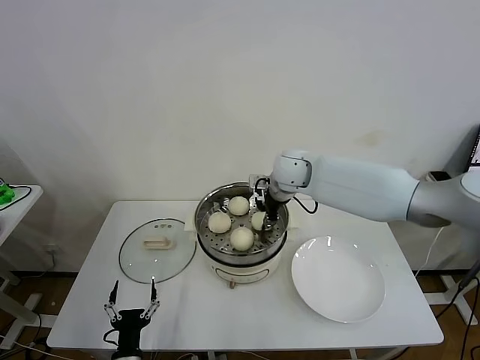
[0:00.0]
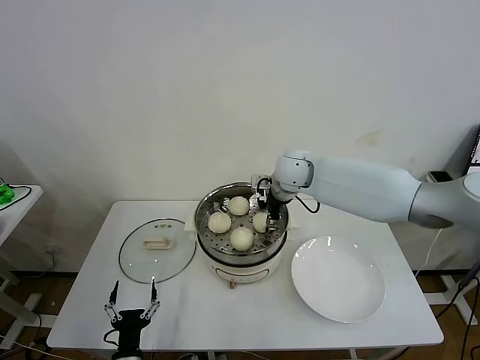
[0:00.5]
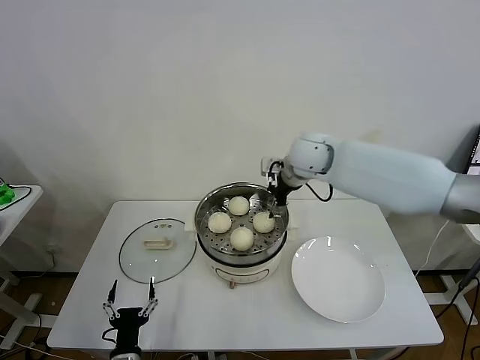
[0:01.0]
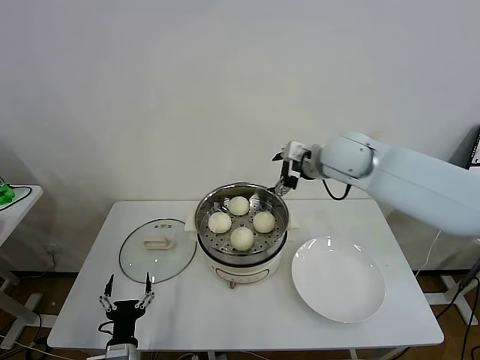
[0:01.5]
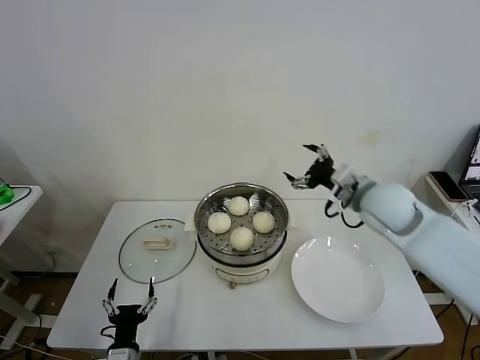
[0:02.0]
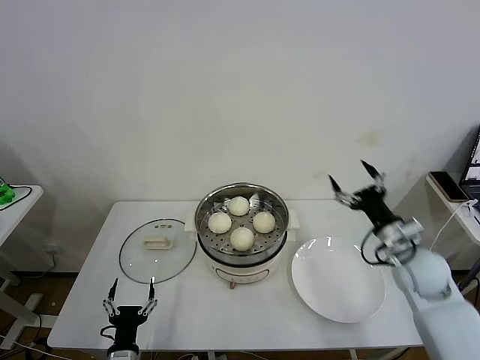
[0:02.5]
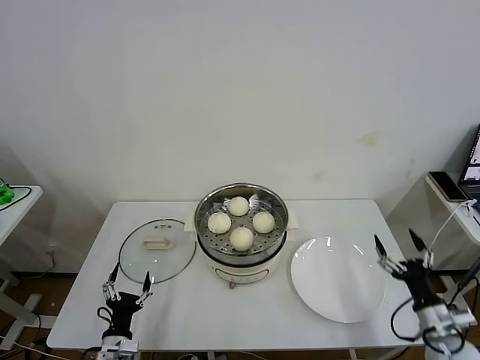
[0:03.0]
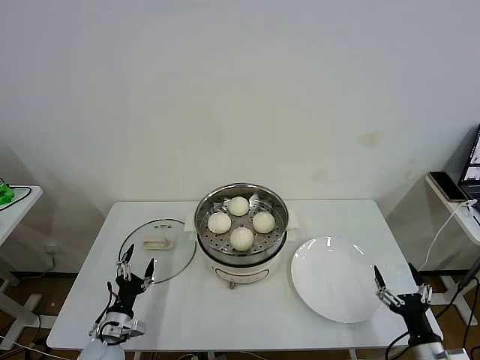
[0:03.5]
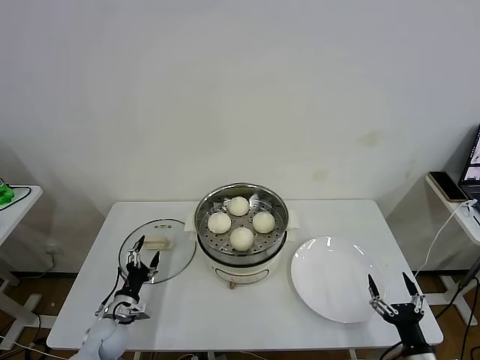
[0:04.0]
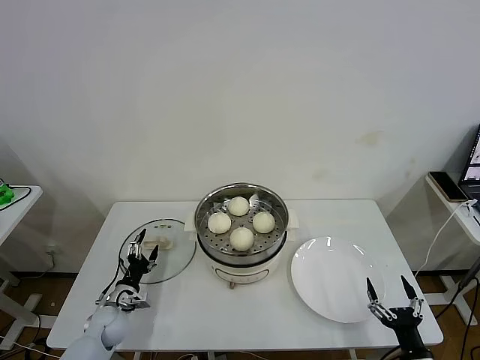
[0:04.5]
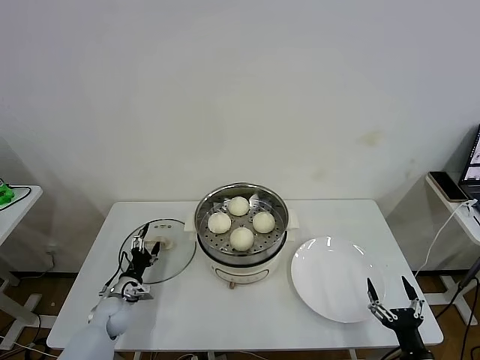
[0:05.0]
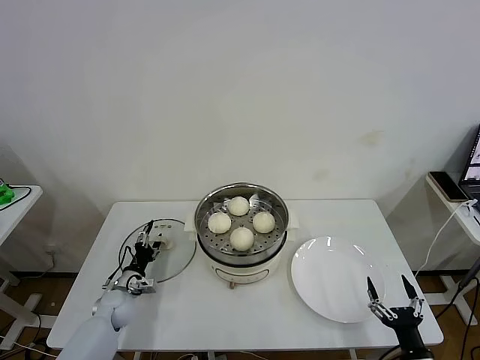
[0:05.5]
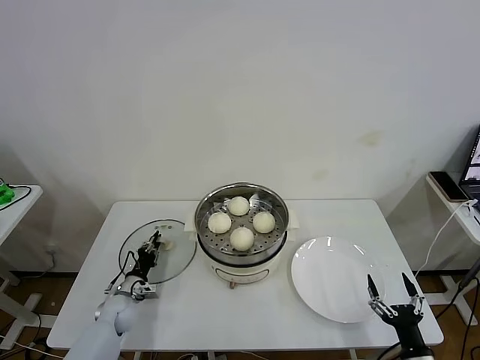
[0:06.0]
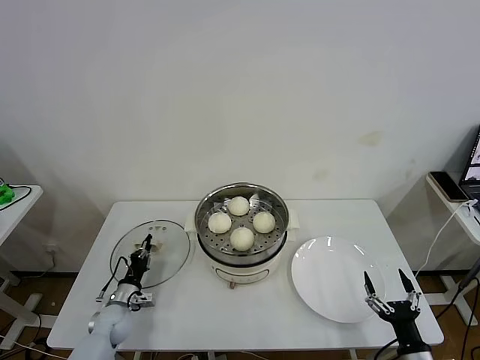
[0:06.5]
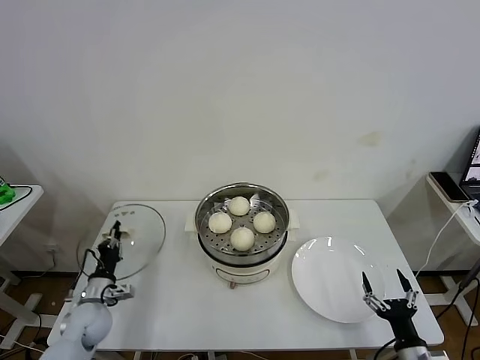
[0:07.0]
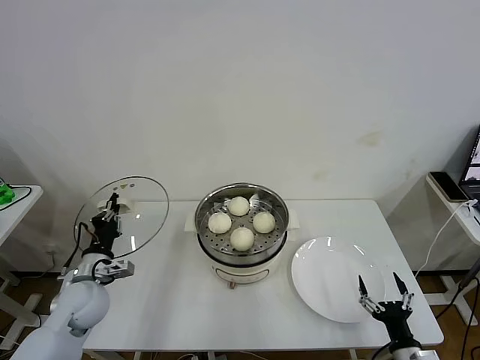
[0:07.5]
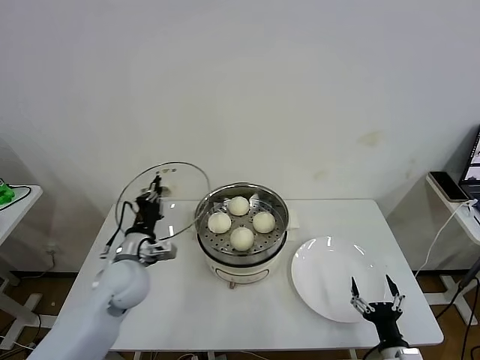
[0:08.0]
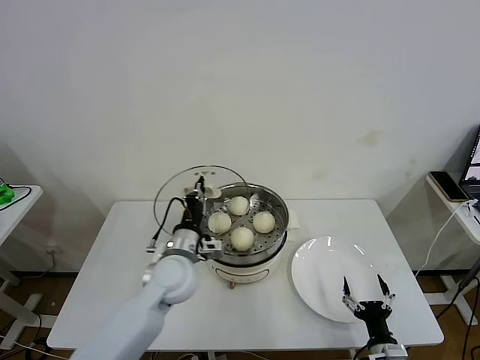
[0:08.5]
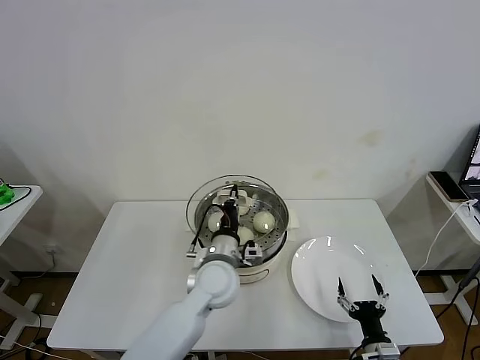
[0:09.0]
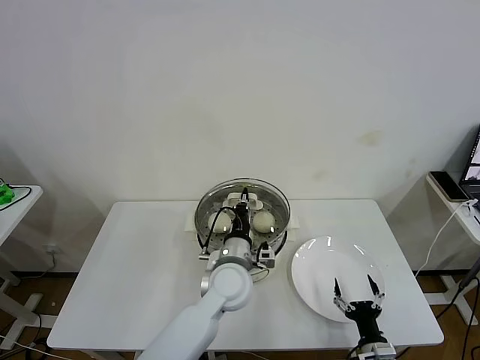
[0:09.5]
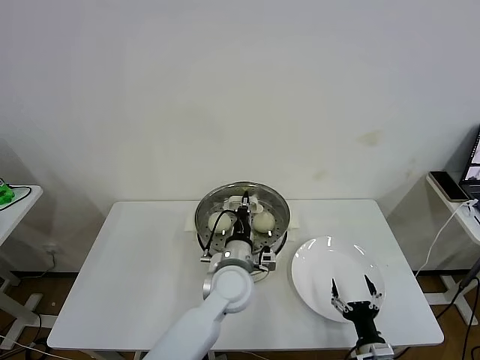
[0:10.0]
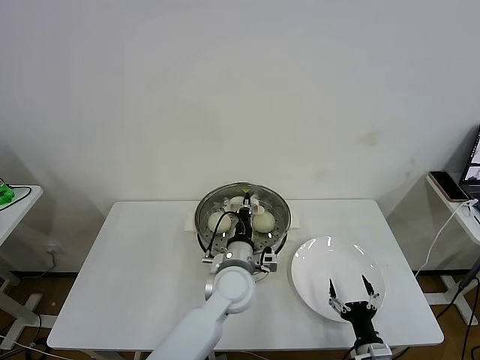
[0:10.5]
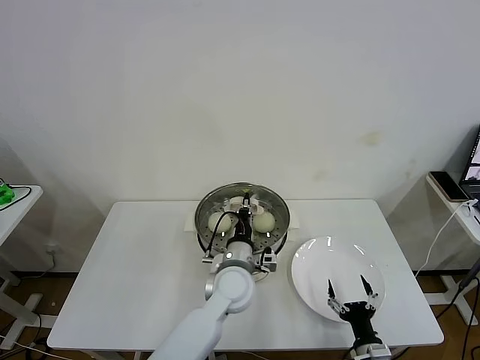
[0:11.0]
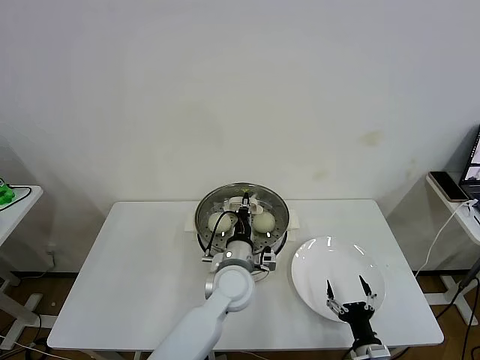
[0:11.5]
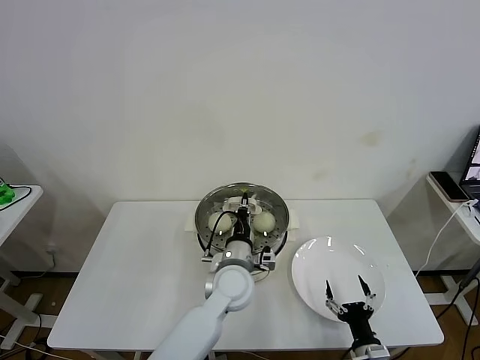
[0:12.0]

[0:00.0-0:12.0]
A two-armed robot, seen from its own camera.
Task of the whole recording: take steamed baozi put them in steamer then cover it.
Step, 0:01.0 to 0:06.0: Grasp the pot lid with left gripper.
0:00.0 to 0:02.0: The right gripper shifts about 20 cm to the right and backward, and opens up.
0:02.0 to 0:04.0: The left gripper shifts approximately 15 cm forward and to the left, while the right gripper goes some 40 cm backward and downward.
0:04.0 to 0:06.0: The left gripper moves forward, approximately 5 cm, and closes.
0:06.0 to 0:08.0: The left gripper moves upward and to the right, roughly 25 cm.
0:08.0 to 0:10.0: The left gripper travels to the right by about 25 cm.
0:10.0 to 0:12.0: The grippers move only a little.

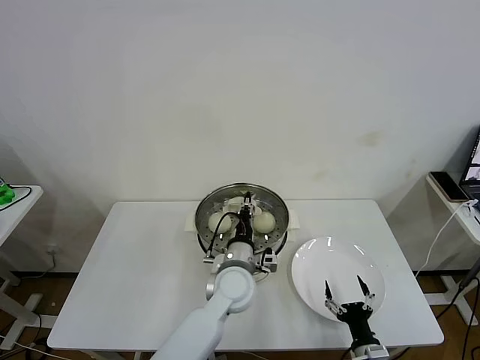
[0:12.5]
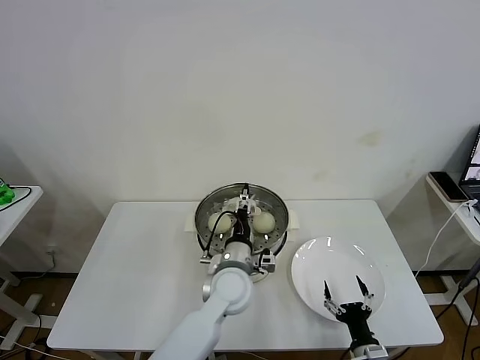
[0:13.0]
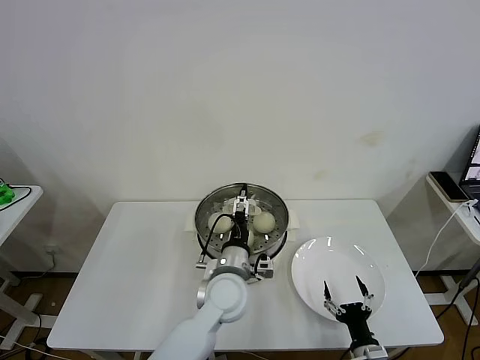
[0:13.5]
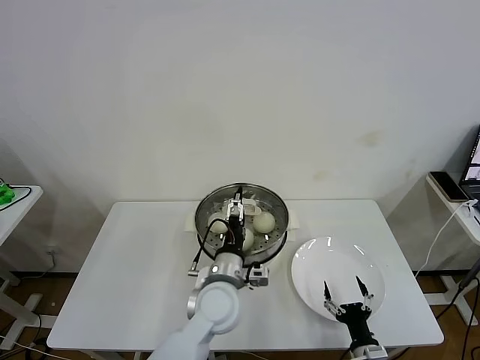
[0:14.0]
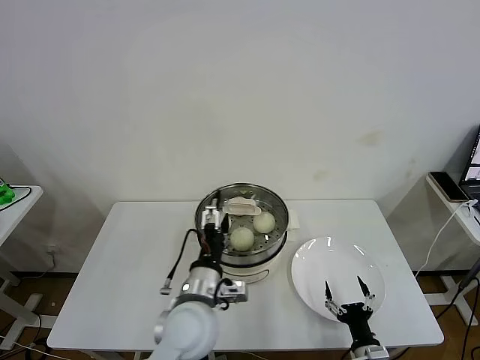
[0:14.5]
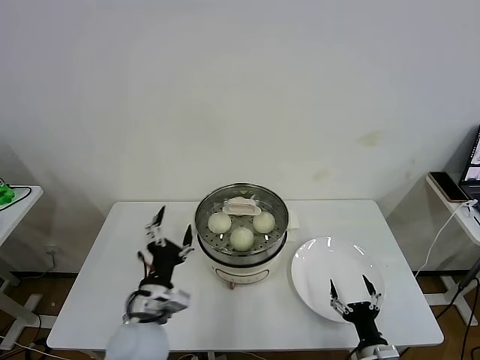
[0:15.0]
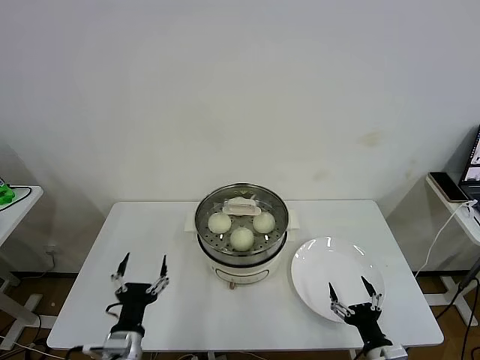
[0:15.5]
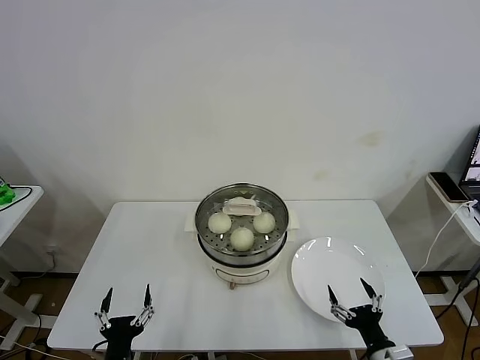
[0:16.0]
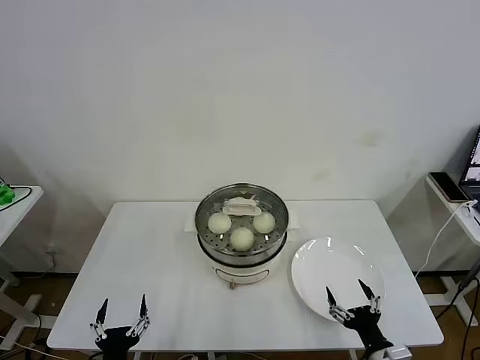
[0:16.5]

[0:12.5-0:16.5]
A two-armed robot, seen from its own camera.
Task of the whole recording: take steamed baozi put them in steamer then cover it.
0:12.5 to 0:14.5: The left gripper heads backward and to the left, covering approximately 10 cm, and opens up.
0:14.5 to 0:16.5: The right gripper is displaced upward by roughly 5 cm, while the left gripper heads to the left, backward and downward, covering approximately 30 cm.
